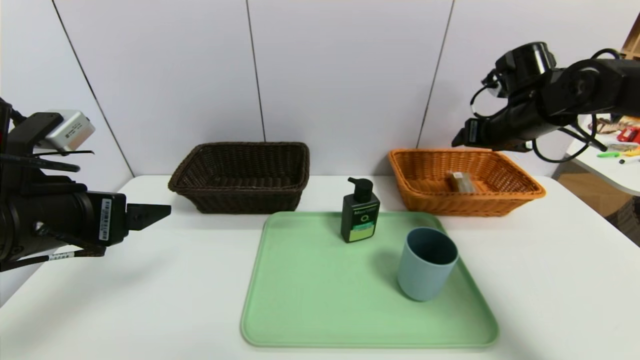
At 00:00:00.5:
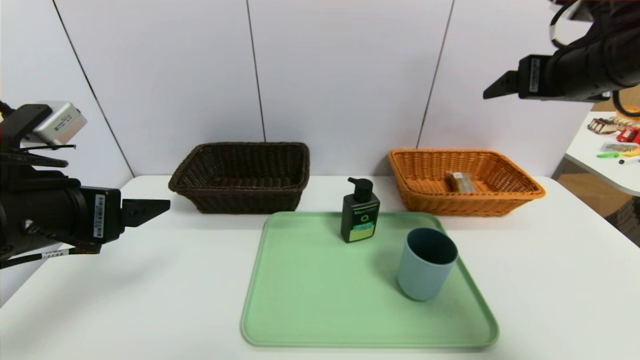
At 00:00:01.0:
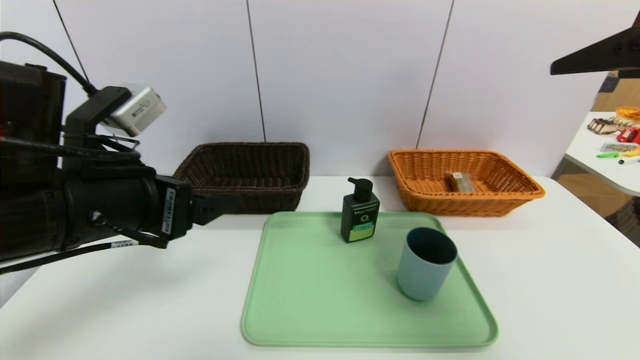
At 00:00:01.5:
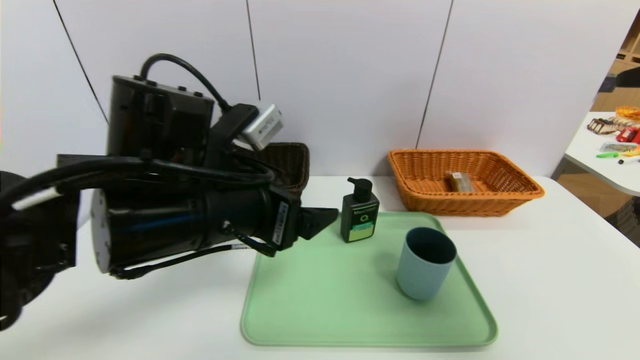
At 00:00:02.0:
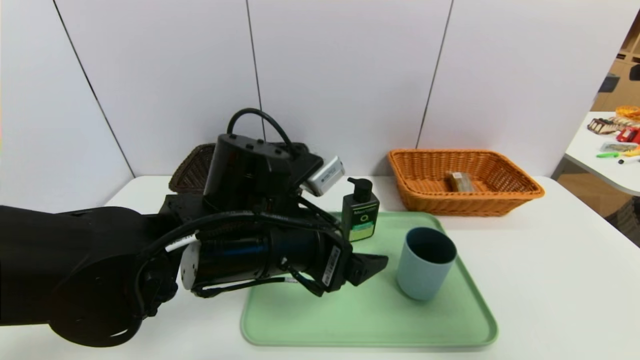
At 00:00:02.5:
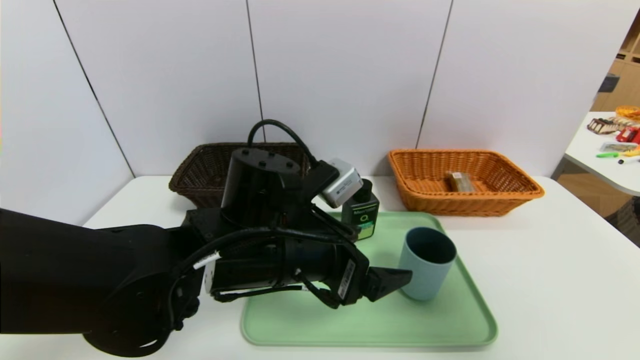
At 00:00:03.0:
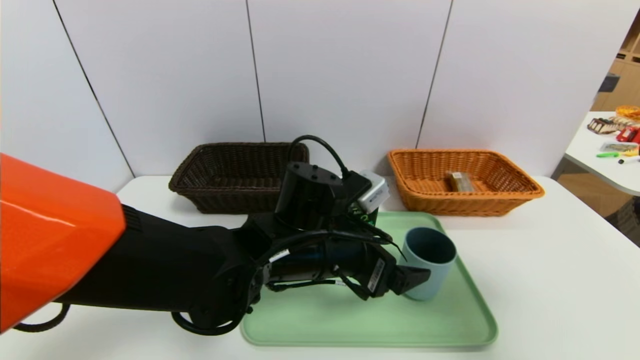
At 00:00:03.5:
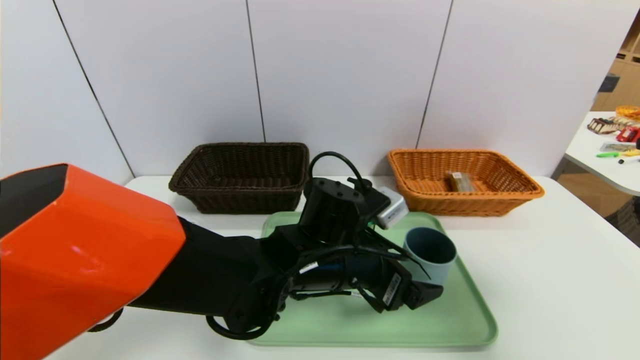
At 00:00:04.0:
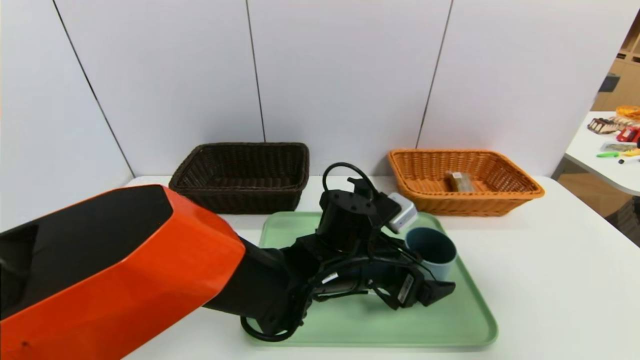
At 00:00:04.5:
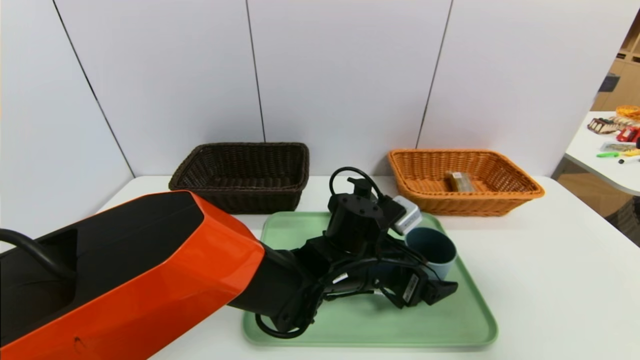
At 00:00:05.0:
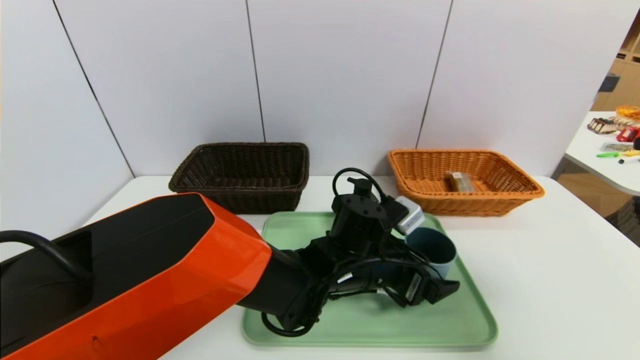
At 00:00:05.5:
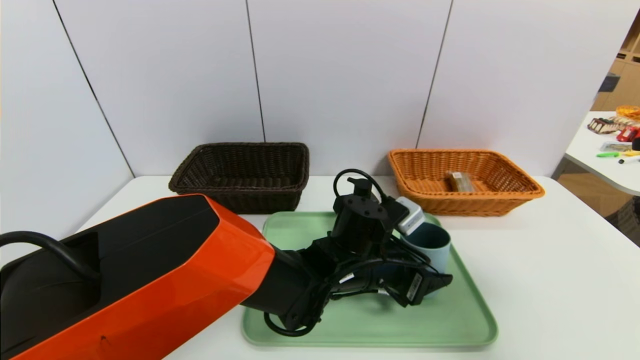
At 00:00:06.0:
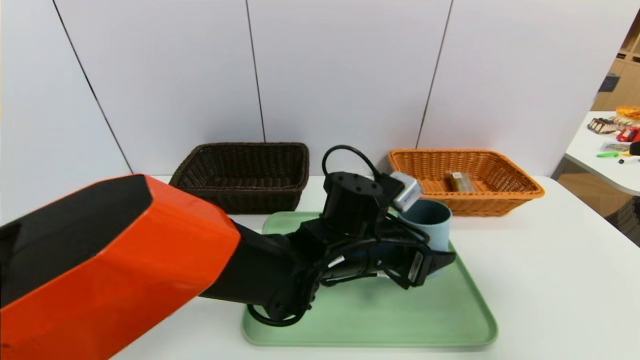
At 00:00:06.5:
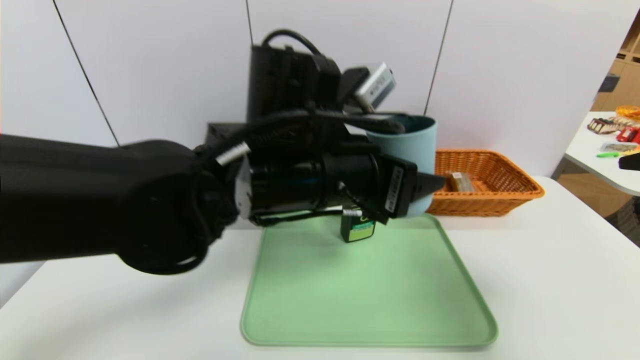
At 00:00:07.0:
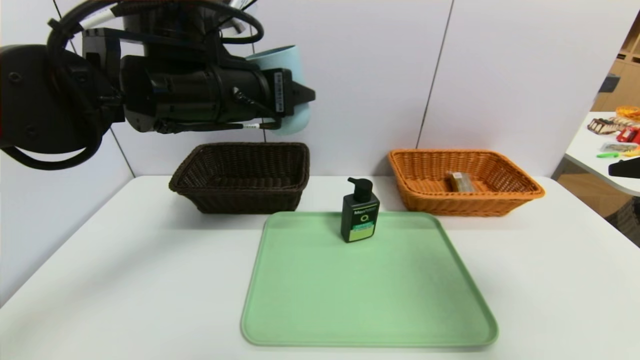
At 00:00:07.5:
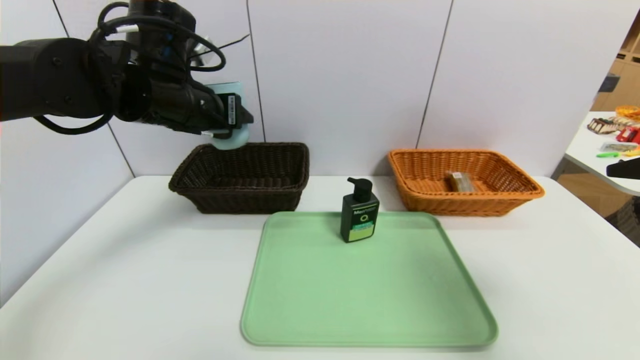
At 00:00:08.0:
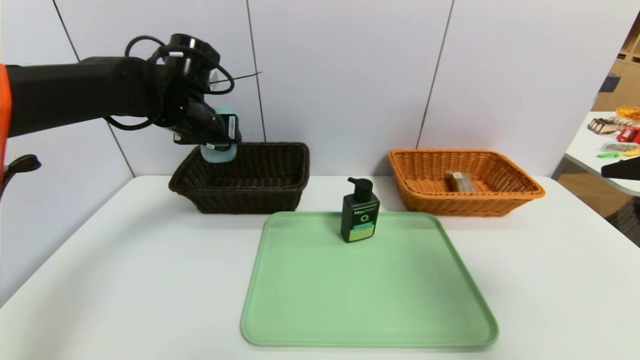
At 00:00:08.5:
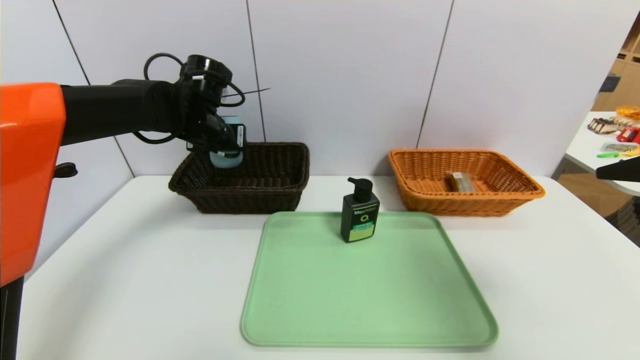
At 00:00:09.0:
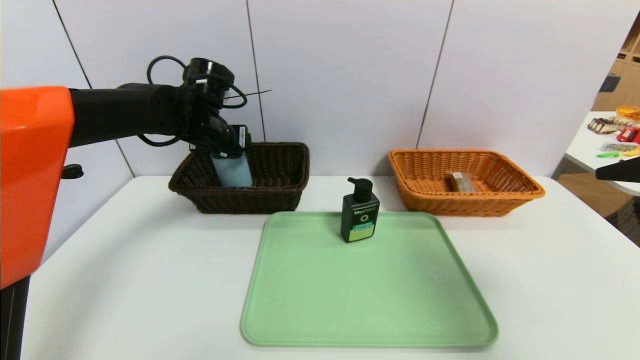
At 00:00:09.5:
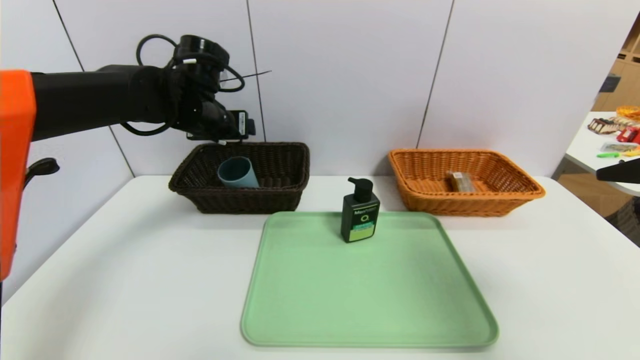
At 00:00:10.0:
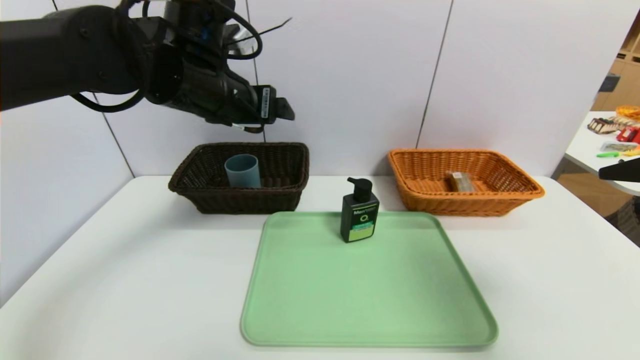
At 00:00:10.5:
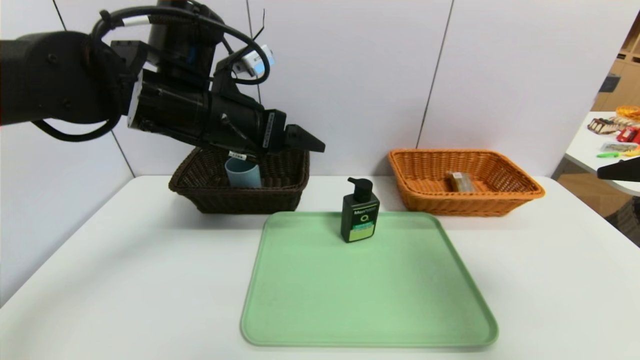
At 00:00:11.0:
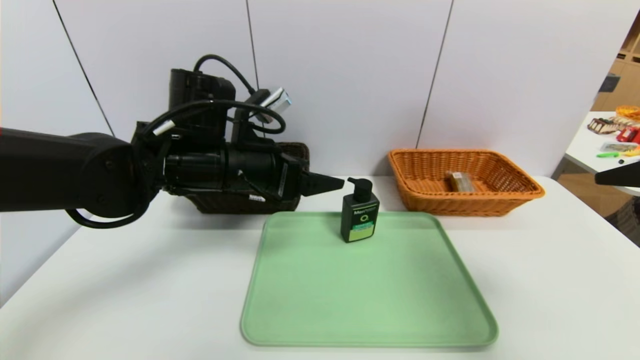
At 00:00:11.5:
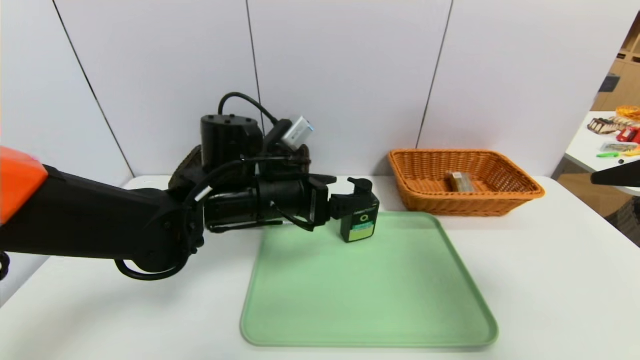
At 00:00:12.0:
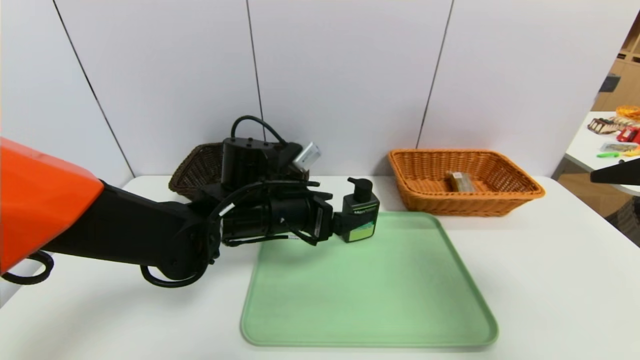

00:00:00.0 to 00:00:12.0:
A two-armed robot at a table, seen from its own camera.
Task of the whole recording: place the food in the right basket with the right gripper, and place the non food items in the left basket with the left gripper.
Step, 00:00:00.5 to 00:00:09.0: Grasp the blue cup and put it in the left basket.
00:00:00.0 to 00:00:02.0: The right gripper is displaced backward and upward by about 30 cm. The left gripper moves to the right, approximately 20 cm.
00:00:02.0 to 00:00:04.0: The left gripper moves to the right, downward and forward, roughly 15 cm.
00:00:04.0 to 00:00:06.0: The left gripper closes its fingers.
00:00:06.0 to 00:00:08.0: The left gripper moves to the left, forward and upward, roughly 30 cm.
00:00:08.0 to 00:00:10.0: The left gripper moves backward, to the right and upward, some 10 cm, and opens up.
00:00:10.0 to 00:00:12.0: The left gripper travels downward by roughly 15 cm.

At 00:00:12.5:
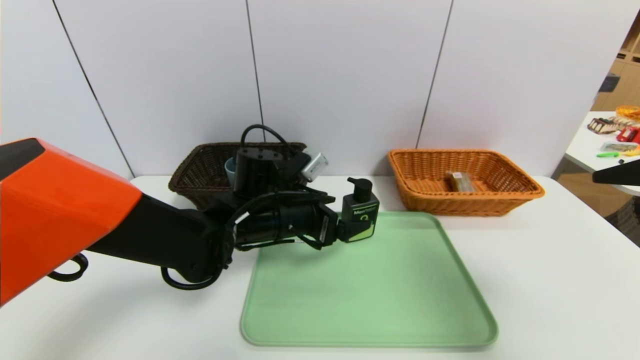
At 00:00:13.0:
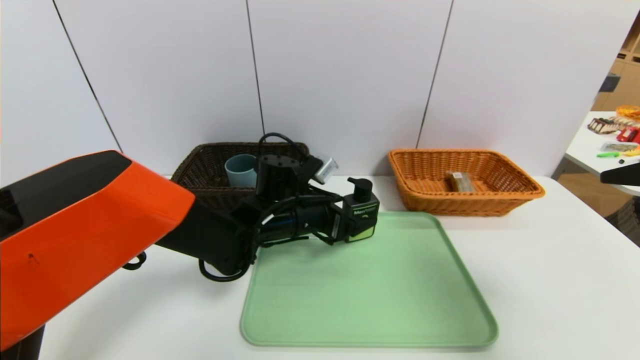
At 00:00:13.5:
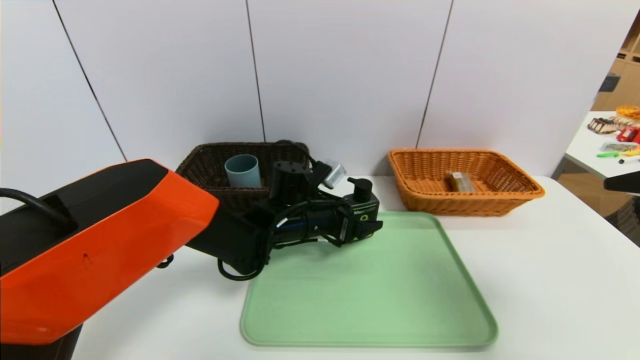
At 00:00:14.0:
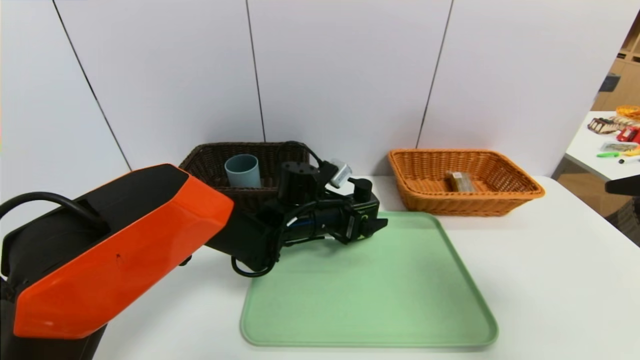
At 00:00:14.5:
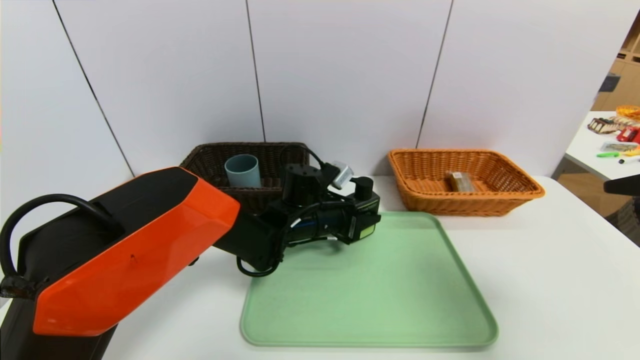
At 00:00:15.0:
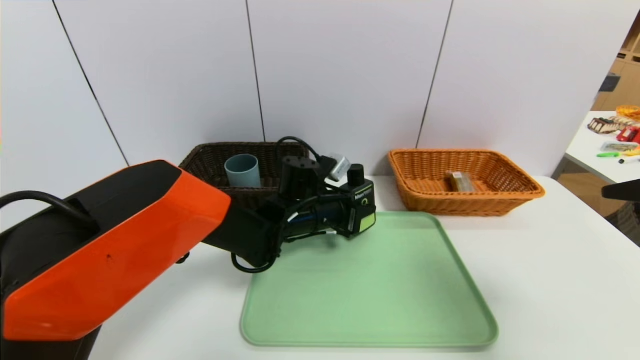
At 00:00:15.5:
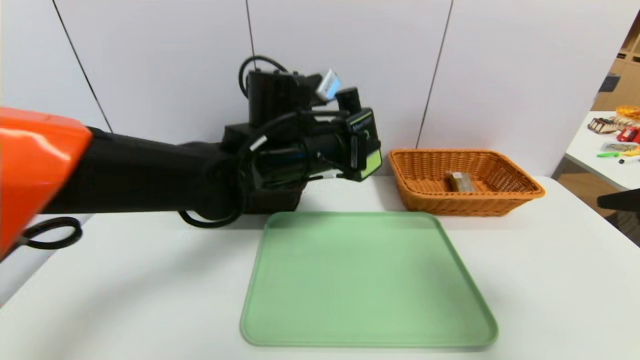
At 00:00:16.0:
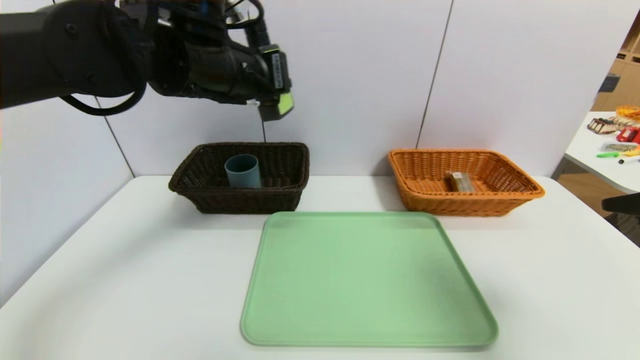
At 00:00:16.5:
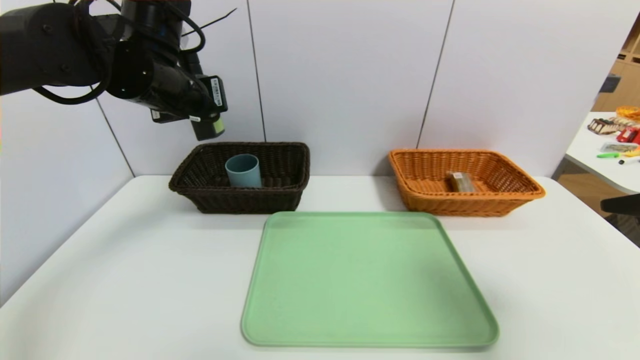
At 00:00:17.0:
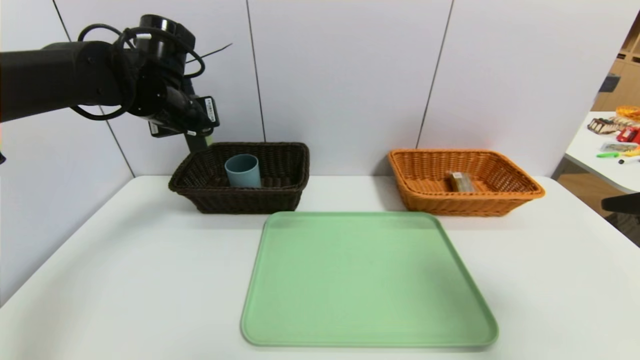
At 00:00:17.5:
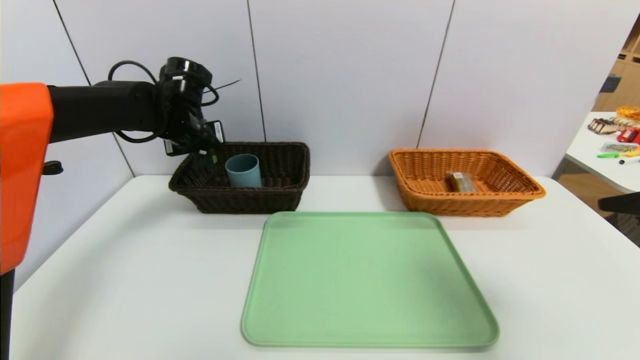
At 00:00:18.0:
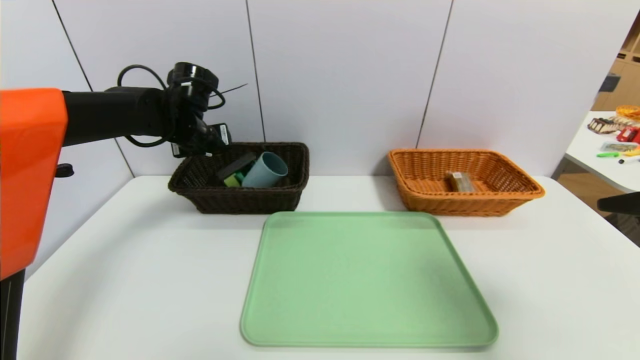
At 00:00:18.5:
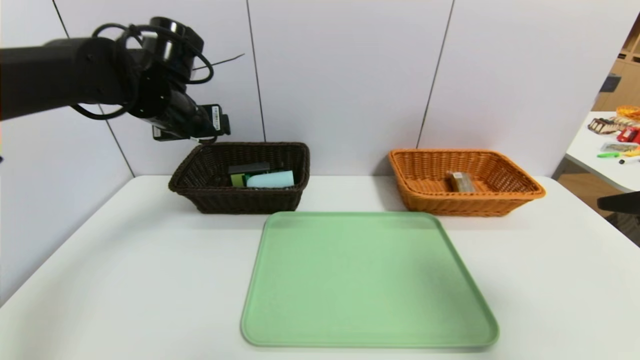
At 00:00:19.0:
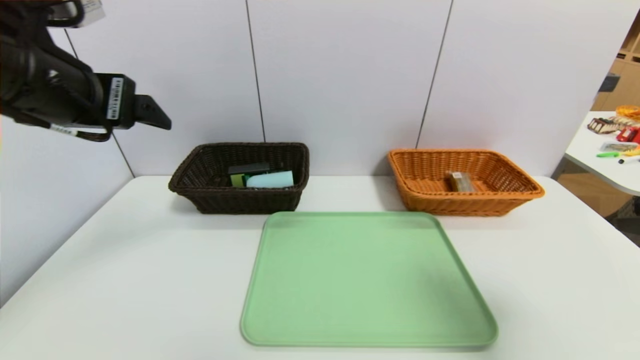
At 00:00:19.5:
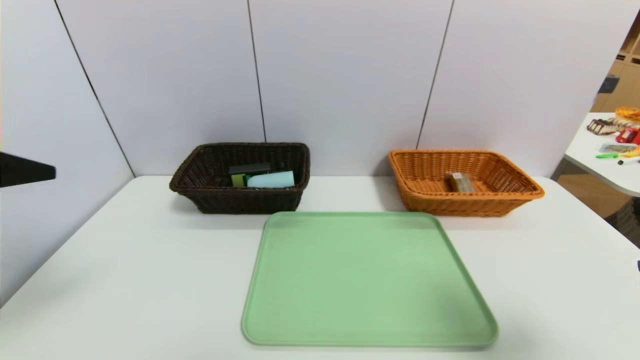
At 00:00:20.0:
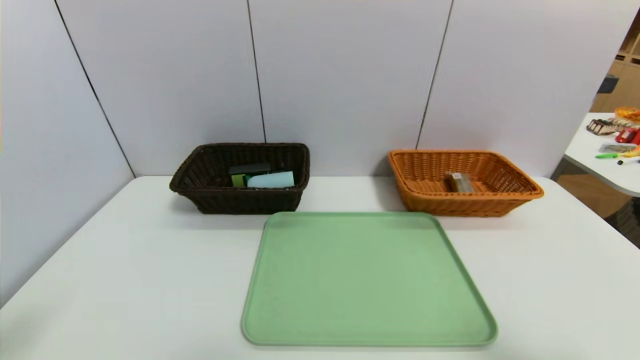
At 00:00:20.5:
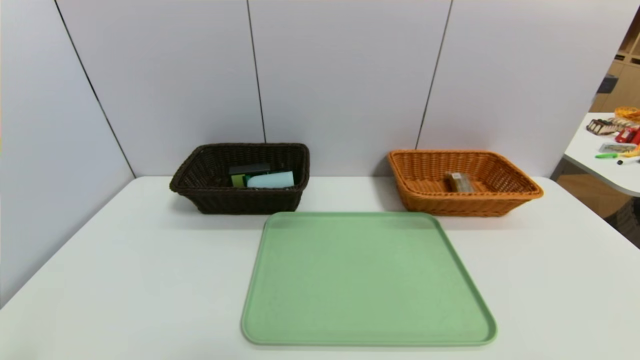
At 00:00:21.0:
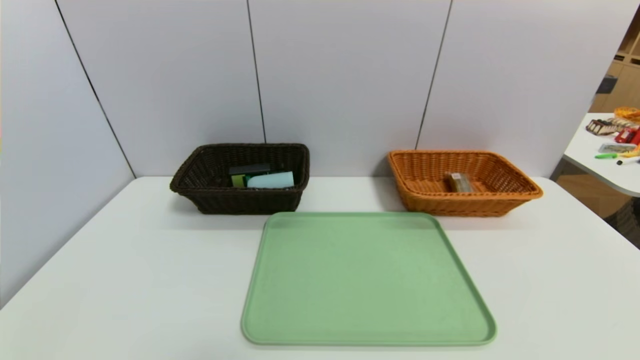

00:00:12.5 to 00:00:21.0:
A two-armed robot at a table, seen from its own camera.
Task of the whole recording: place the food in the right basket with the right gripper, and place the non food items in the left basket with the left gripper.
Step, 00:00:12.5 to 00:00:18.0: Grasp the hard cleanser and put it in the left basket.
00:00:12.5 to 00:00:14.5: The left gripper heads forward, to the right and downward, covering about 10 cm, and closes.
00:00:14.5 to 00:00:16.5: The left gripper goes some 30 cm upward and to the left.
00:00:16.5 to 00:00:19.0: The left gripper travels backward by some 15 cm, and opens.
00:00:19.0 to 00:00:21.0: The right gripper heads backward and downward, covering some 20 cm; the left gripper shifts about 35 cm backward and downward.
